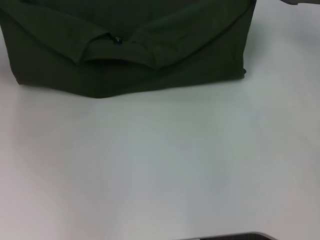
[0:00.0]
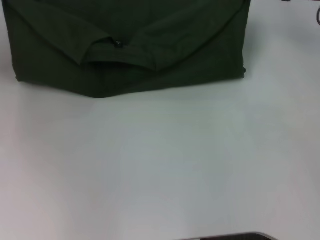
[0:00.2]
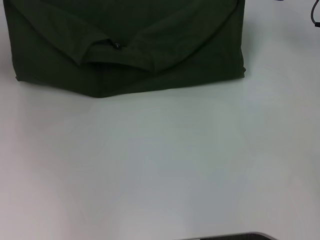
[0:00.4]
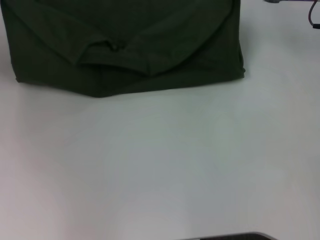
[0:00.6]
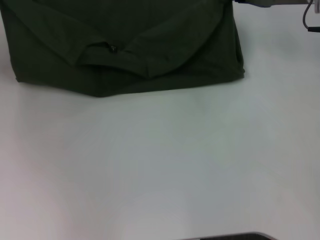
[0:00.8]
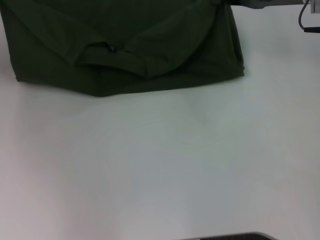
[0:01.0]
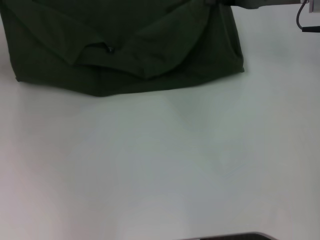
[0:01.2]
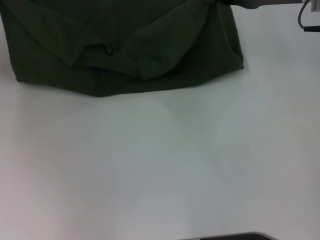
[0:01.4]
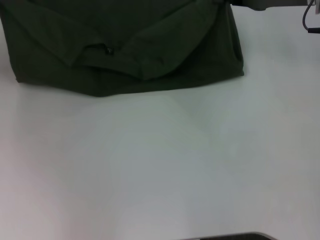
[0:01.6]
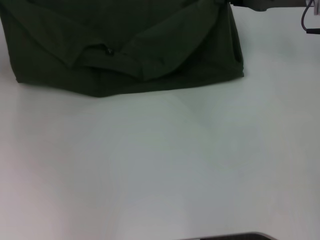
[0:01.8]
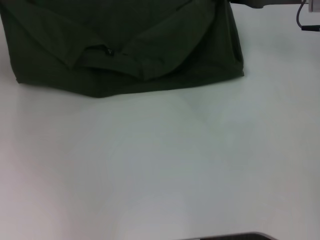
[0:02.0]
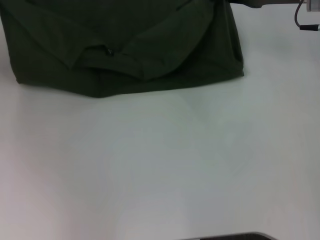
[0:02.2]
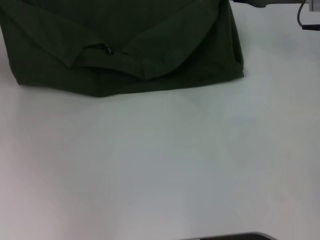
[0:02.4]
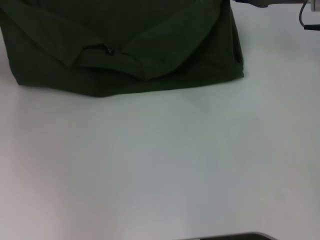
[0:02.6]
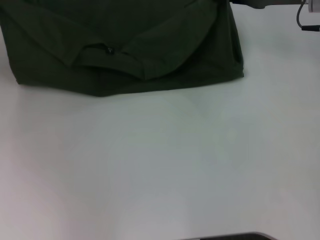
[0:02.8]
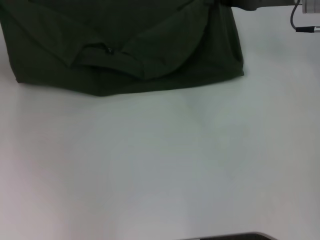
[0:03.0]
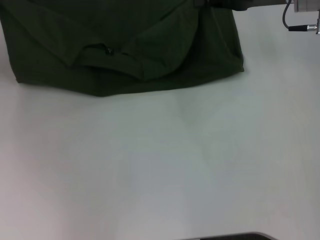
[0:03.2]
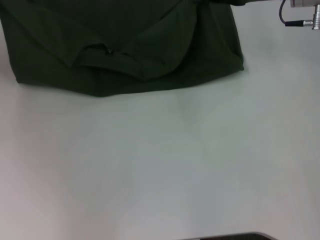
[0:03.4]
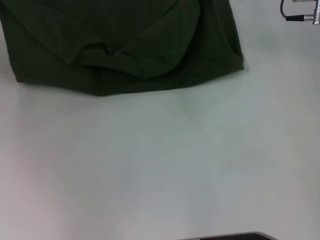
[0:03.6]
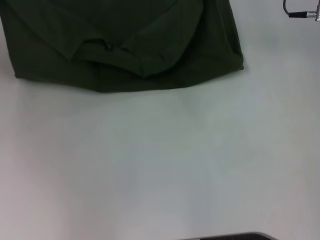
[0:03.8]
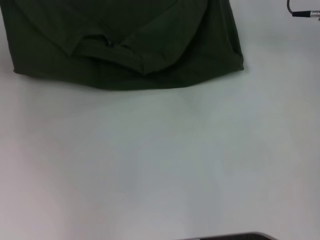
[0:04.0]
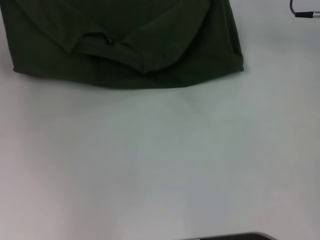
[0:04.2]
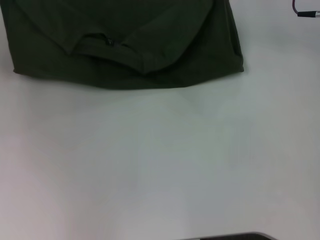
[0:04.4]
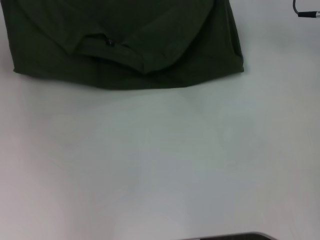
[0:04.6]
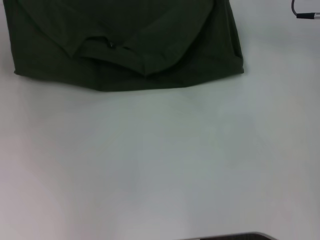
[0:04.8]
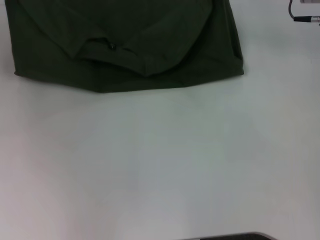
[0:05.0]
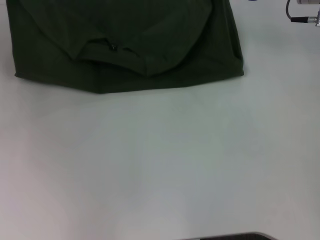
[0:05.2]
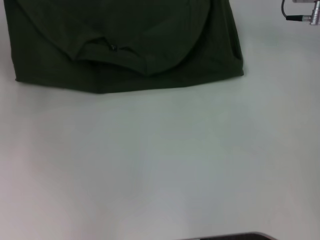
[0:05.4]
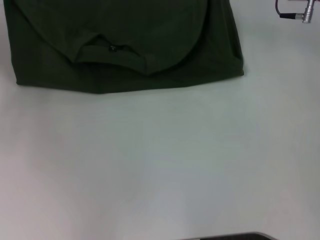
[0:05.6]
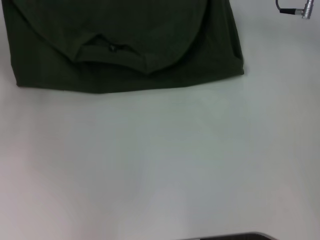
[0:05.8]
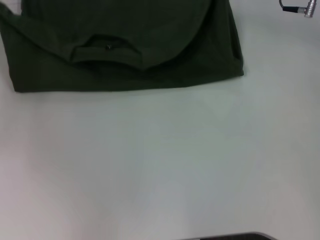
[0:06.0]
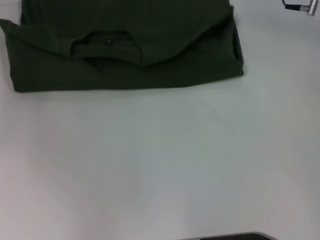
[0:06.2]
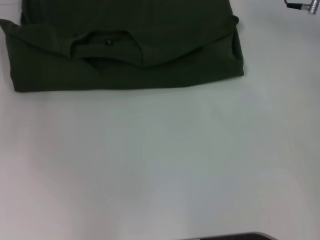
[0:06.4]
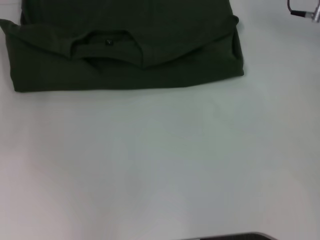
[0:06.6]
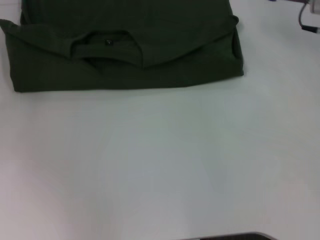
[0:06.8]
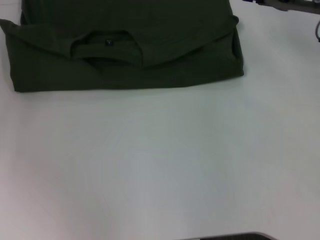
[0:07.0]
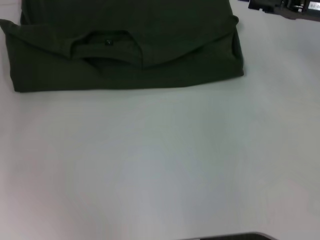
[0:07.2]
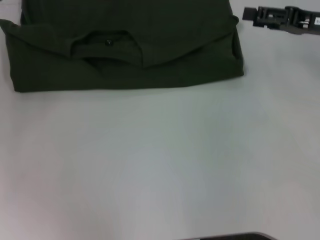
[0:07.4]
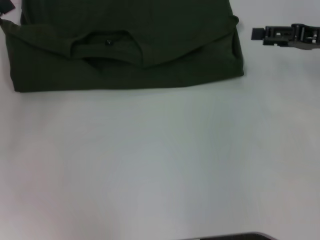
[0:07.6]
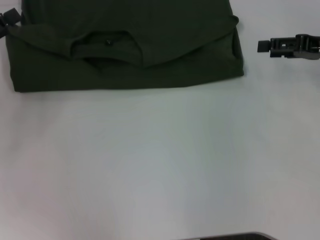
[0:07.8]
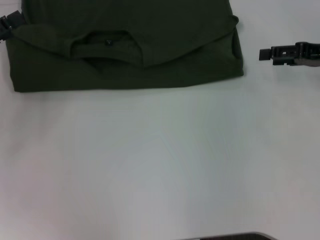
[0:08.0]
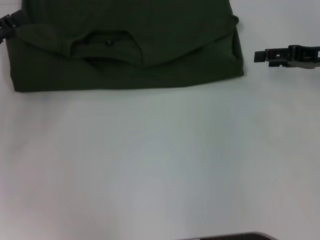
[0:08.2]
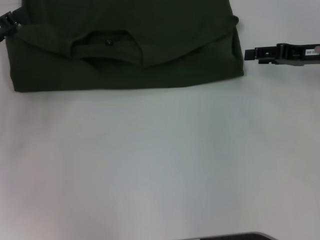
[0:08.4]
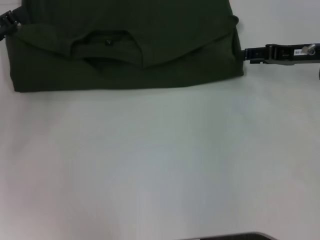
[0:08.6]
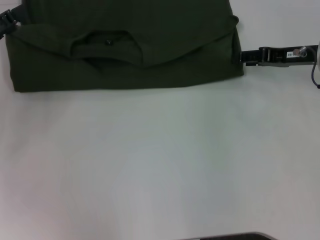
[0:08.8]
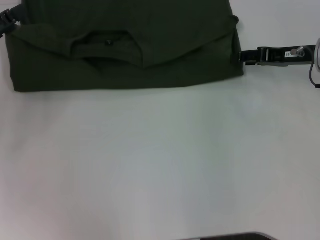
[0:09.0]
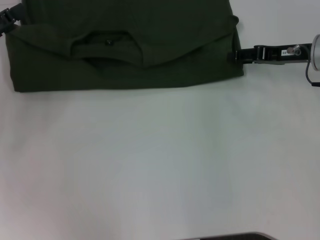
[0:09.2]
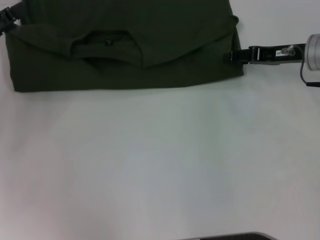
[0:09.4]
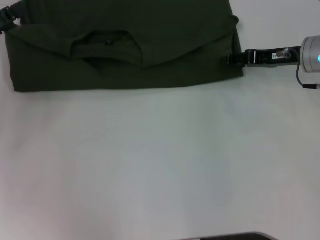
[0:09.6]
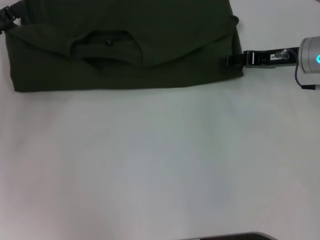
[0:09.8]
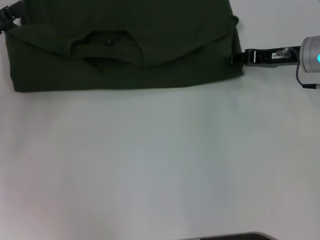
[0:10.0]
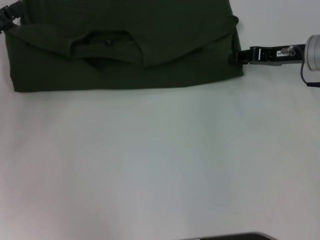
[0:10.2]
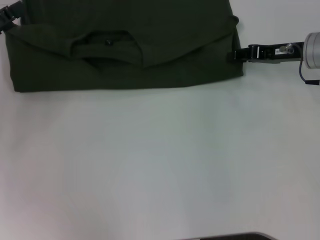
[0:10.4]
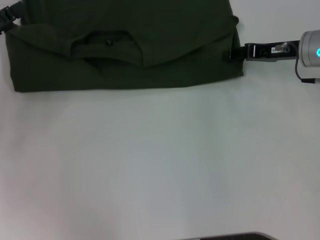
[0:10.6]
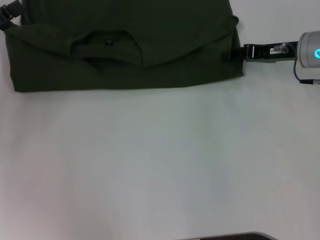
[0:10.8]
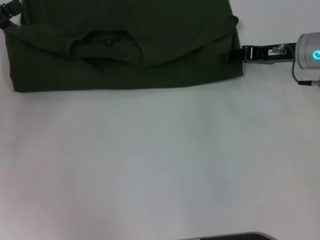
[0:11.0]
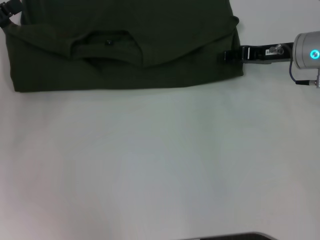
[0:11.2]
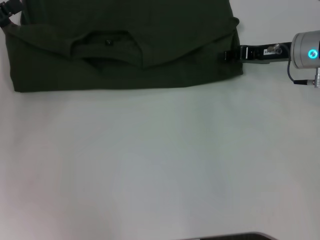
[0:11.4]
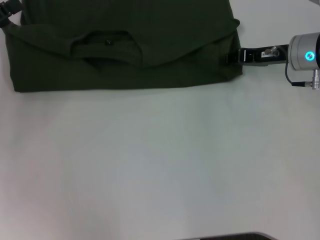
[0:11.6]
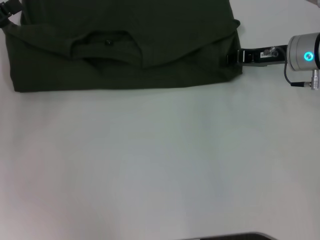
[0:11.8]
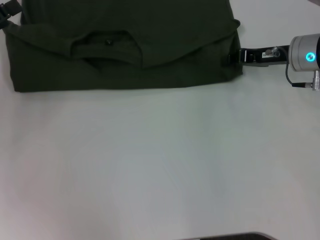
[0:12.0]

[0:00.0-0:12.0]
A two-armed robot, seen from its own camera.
Step, 0:00.0 to 0:06.6: Fold the clothes with your left hand.
Step, 0:00.0 to 0:06.6: Fold the clothes with your right hand.
0:00.0 to 0:01.6: The grippers make only small movements.
0:03.0 to 0:04.4: There are only small adjustments of the grippers.
0:04.4 to 0:06.0: The right gripper opens its fingers, while the left gripper opens up.
0:06.0 to 0:07.6: The left gripper heads backward, covering approximately 10 cm, and opens up, while the right gripper shifts some 10 cm backward and to the right.
0:07.6 to 0:09.0: The right gripper changes place by approximately 5 cm.
0:09.0 to 0:12.0: There are only small adjustments of the grippers.

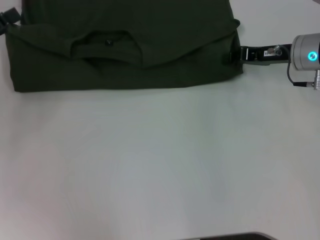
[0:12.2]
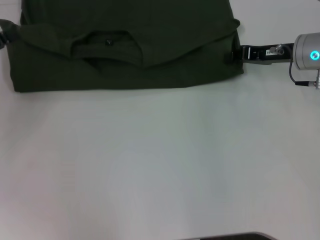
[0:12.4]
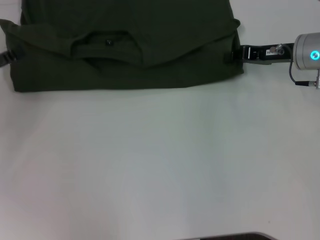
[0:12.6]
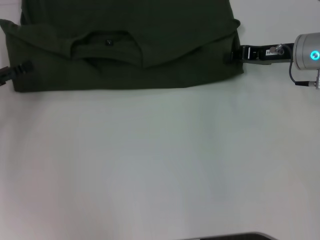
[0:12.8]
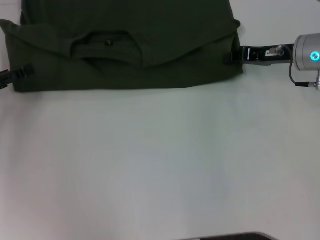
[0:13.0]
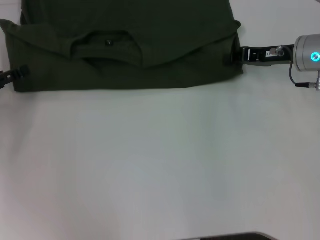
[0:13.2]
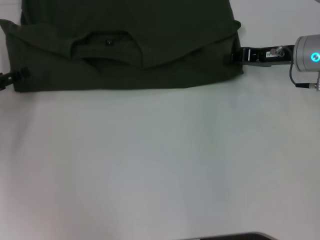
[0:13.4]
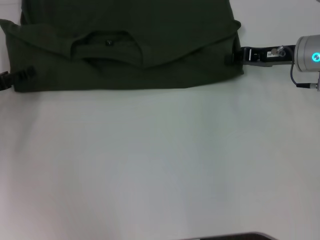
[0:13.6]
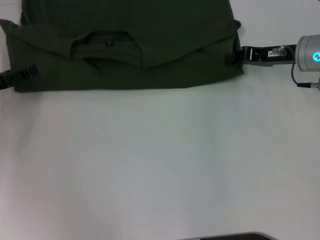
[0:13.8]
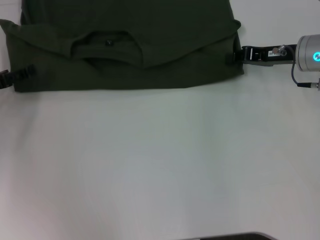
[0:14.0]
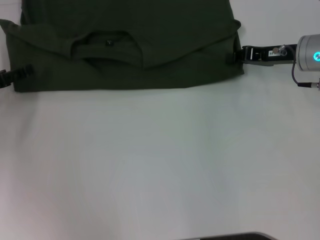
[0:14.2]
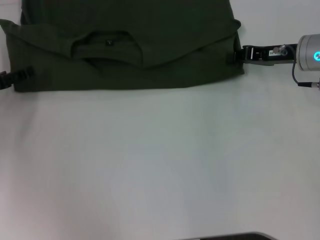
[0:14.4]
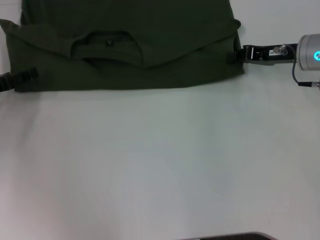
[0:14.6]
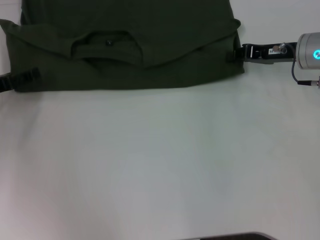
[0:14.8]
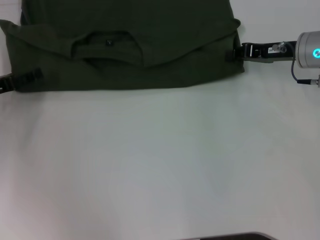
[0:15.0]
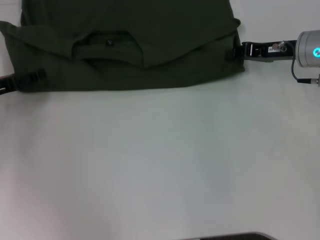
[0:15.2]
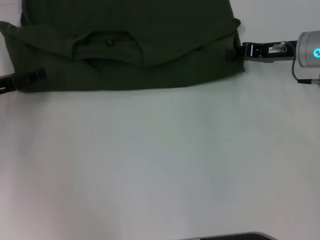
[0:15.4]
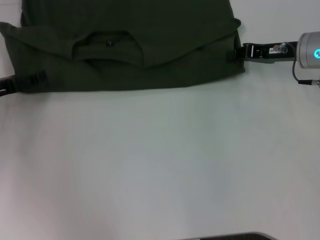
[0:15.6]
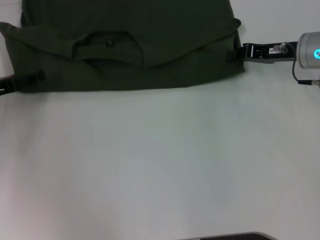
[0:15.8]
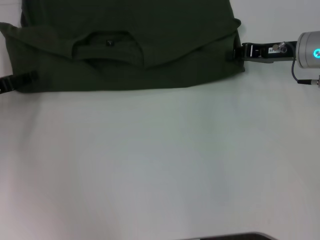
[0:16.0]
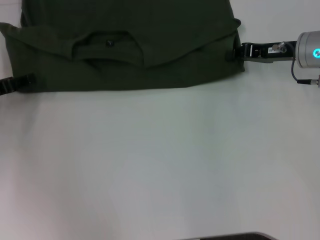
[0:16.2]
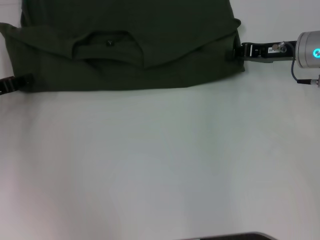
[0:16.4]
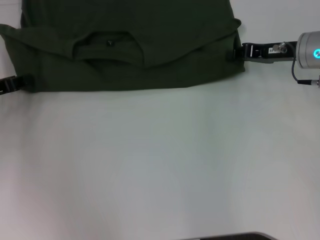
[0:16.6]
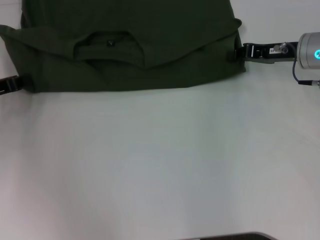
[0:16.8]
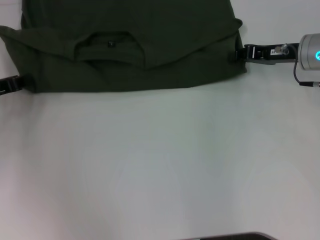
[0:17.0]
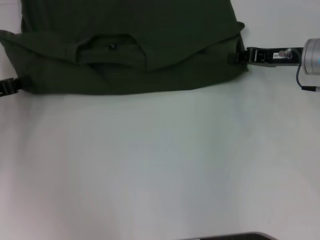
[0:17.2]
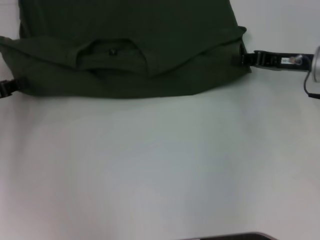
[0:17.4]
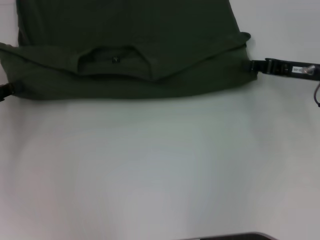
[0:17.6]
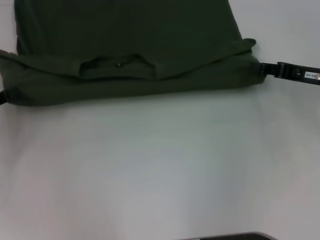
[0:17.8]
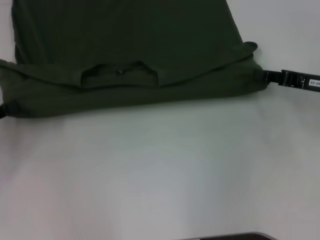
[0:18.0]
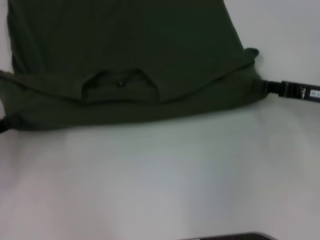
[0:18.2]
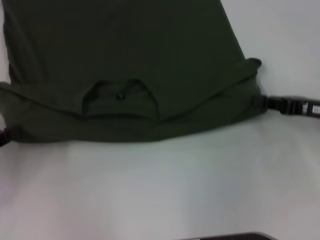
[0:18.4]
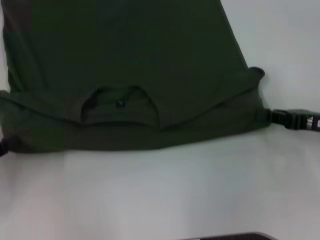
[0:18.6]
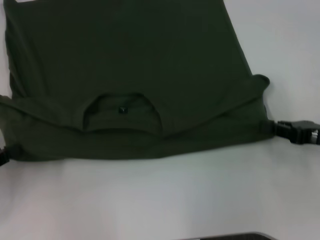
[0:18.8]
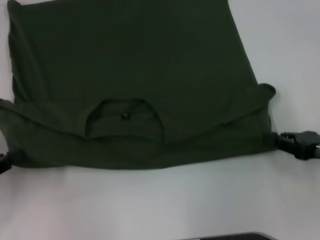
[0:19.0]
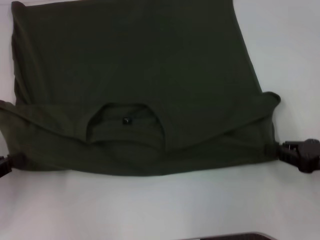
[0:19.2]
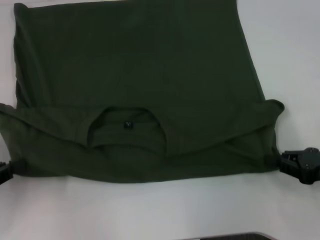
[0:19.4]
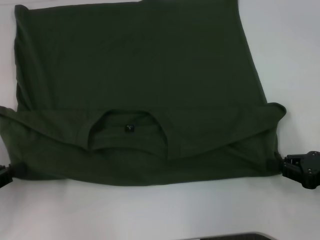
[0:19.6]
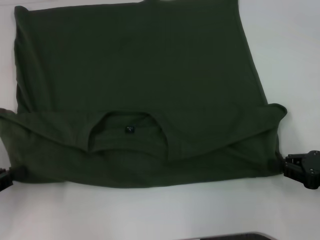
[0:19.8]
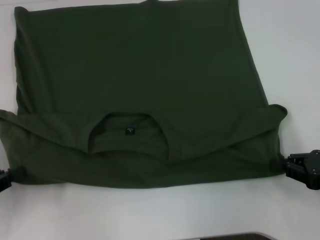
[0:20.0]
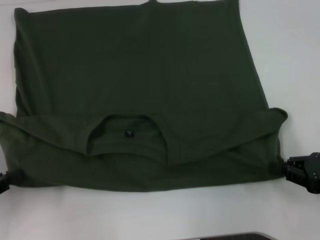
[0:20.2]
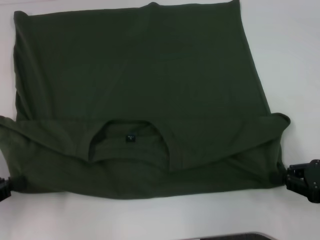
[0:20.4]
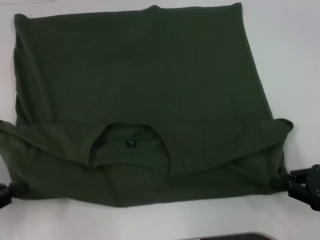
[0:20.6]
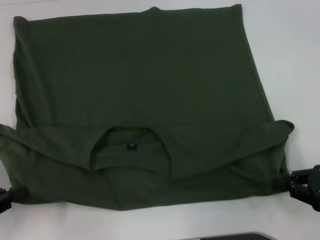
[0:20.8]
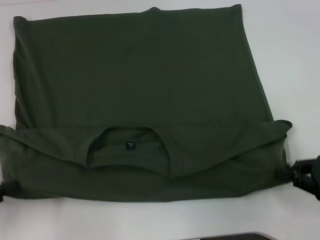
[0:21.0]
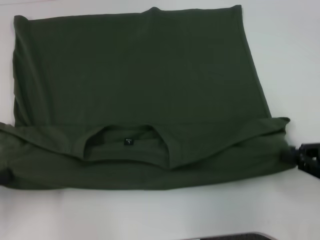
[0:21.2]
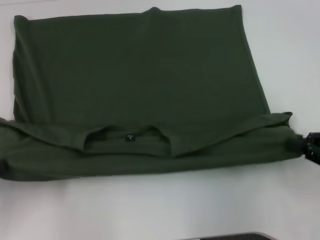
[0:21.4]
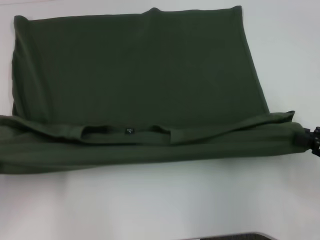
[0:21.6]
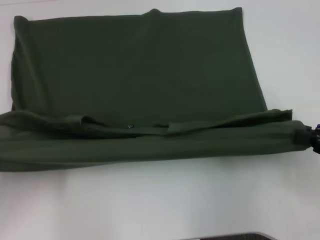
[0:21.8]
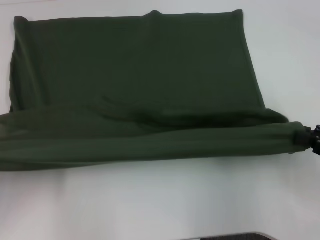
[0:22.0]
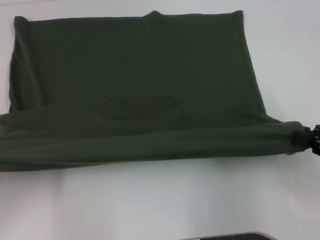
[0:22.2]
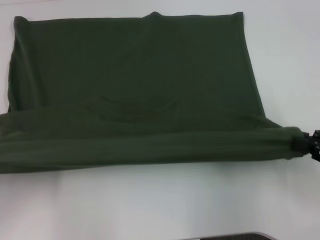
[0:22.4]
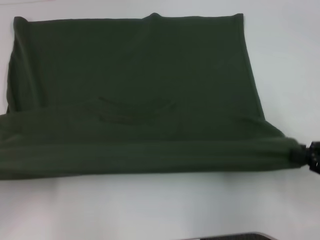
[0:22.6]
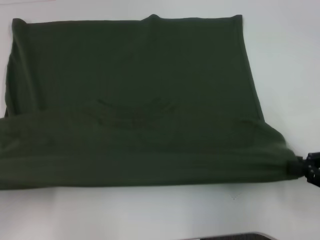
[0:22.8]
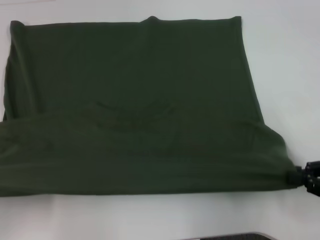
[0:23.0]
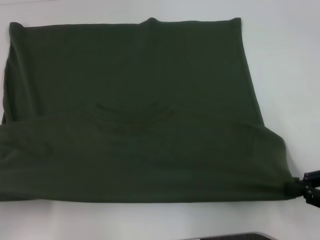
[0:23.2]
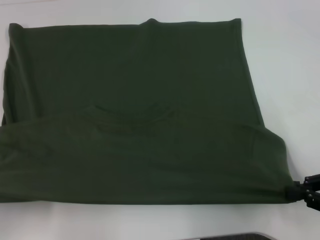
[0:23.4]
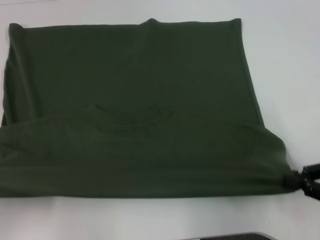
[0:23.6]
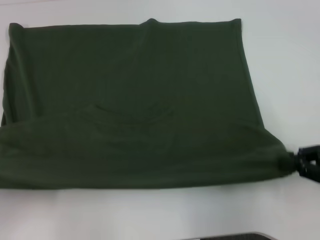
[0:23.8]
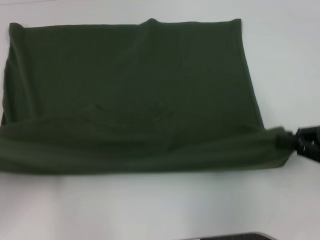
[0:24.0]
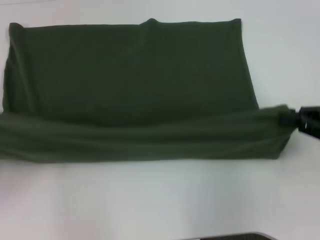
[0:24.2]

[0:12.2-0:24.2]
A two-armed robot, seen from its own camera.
Step, 0:12.2 to 0:23.0: Pull the clothes with your left hand.
Step, 0:12.2 to 0:23.0: Pull the clothes with your right hand.
0:12.2 to 0:13.8: The left gripper moves downward, roughly 5 cm.
0:13.8 to 0:15.2: Both grippers stay about where they are.
0:16.6 to 0:18.2: The right gripper is displaced backward and to the right by about 10 cm. The left gripper is displaced backward by about 10 cm, and closes up.
0:18.2 to 0:19.8: The left gripper travels backward by roughly 5 cm; the right gripper moves backward, about 10 cm.
0:19.8 to 0:22.6: There are only small adjustments of the grippers.
